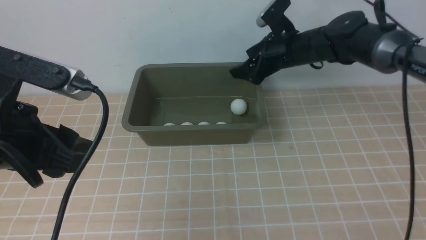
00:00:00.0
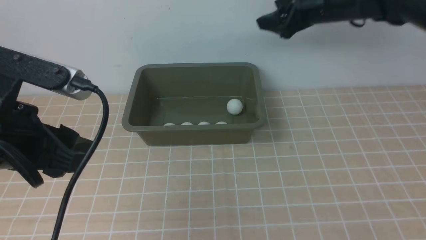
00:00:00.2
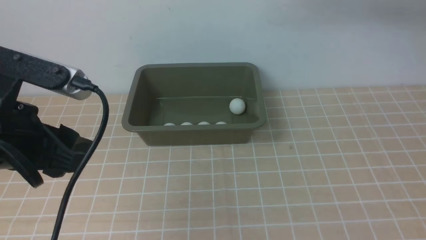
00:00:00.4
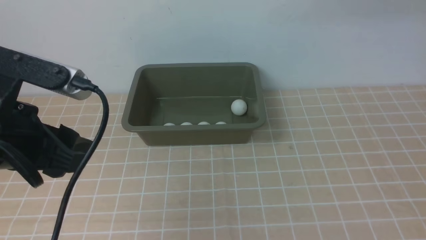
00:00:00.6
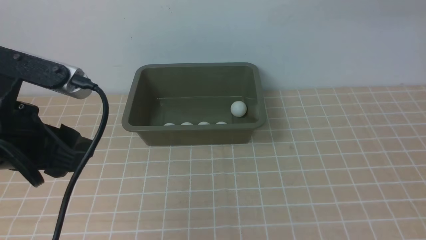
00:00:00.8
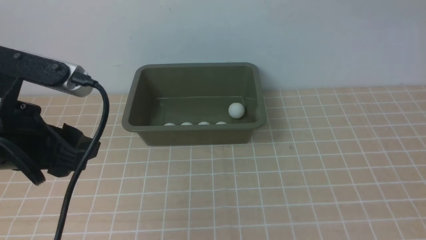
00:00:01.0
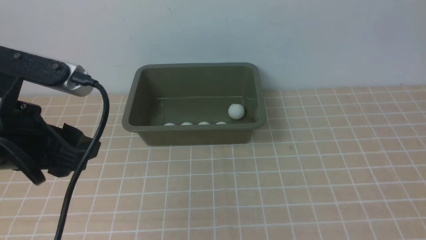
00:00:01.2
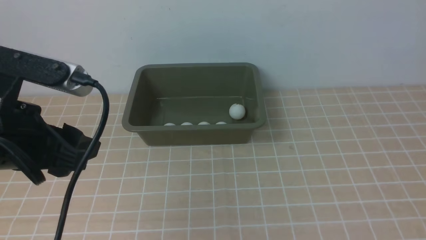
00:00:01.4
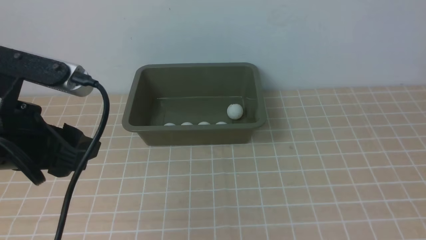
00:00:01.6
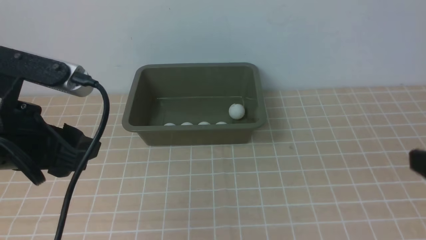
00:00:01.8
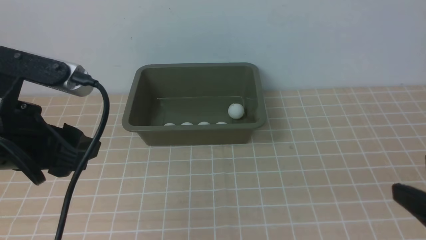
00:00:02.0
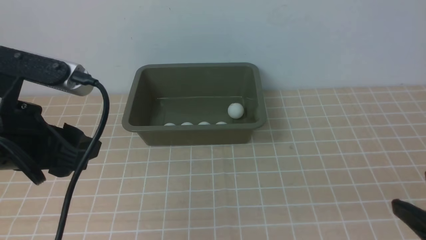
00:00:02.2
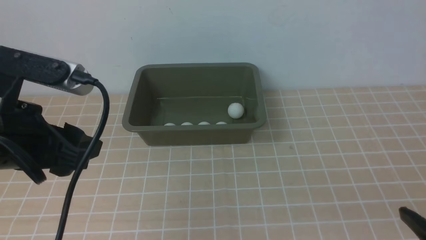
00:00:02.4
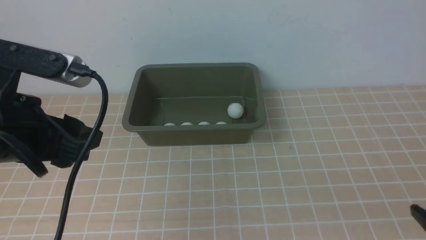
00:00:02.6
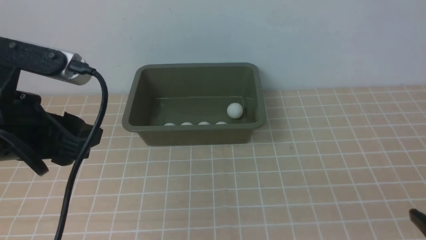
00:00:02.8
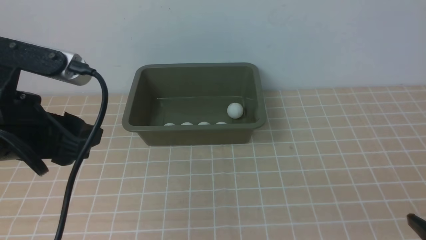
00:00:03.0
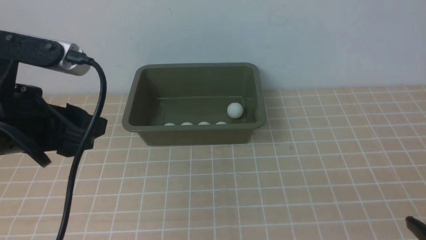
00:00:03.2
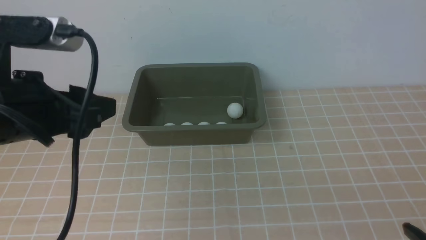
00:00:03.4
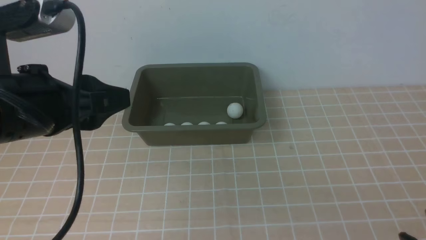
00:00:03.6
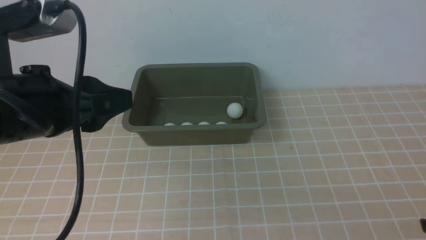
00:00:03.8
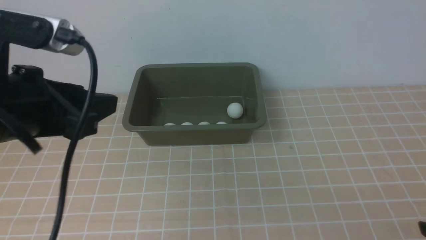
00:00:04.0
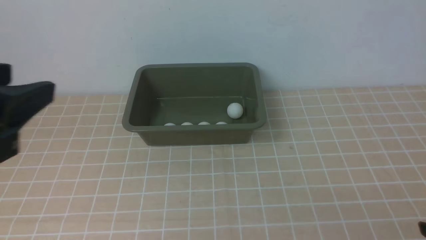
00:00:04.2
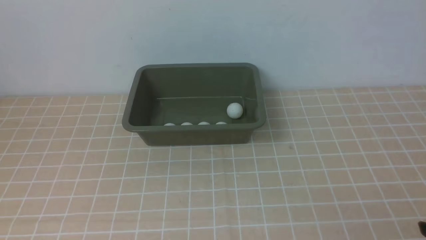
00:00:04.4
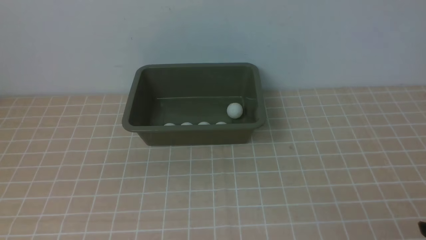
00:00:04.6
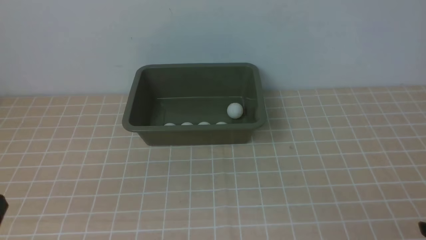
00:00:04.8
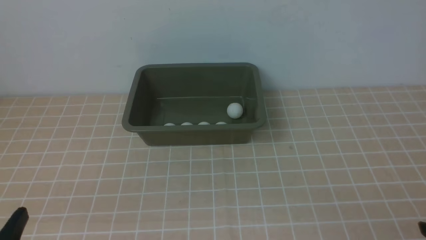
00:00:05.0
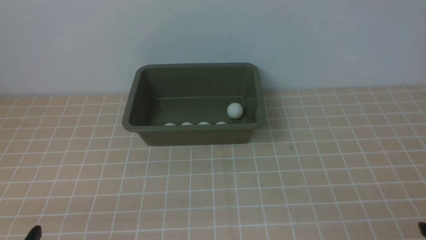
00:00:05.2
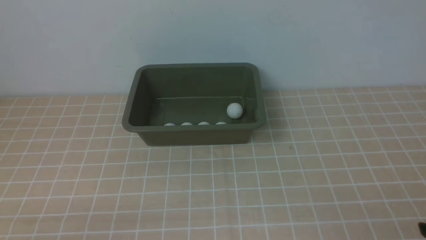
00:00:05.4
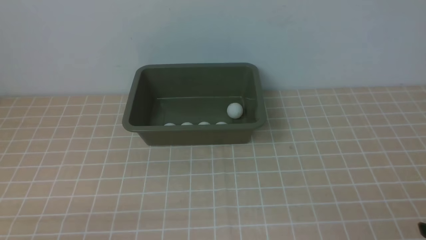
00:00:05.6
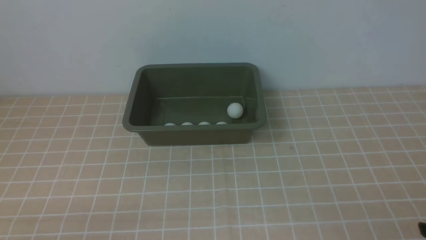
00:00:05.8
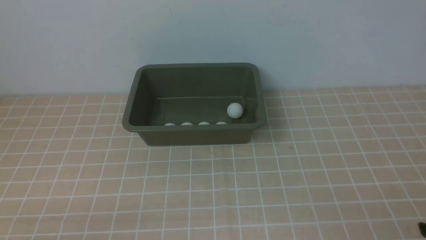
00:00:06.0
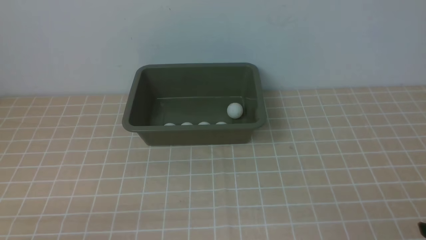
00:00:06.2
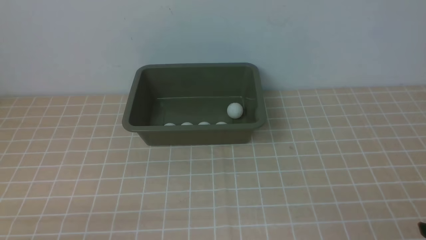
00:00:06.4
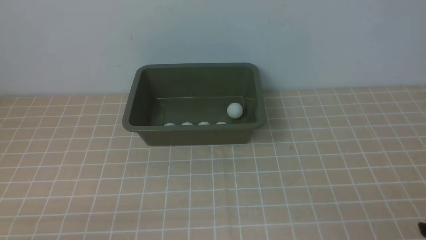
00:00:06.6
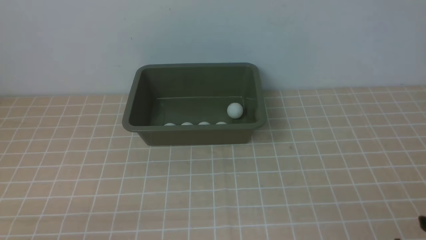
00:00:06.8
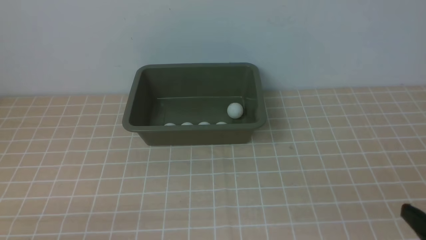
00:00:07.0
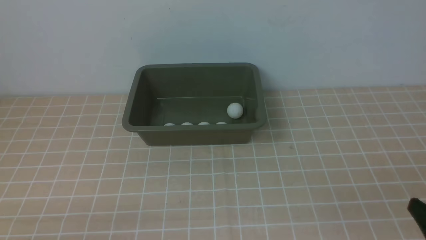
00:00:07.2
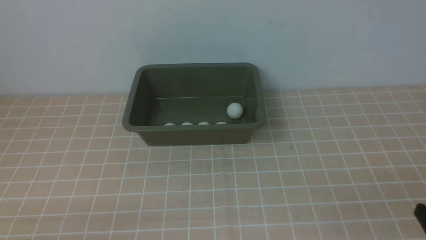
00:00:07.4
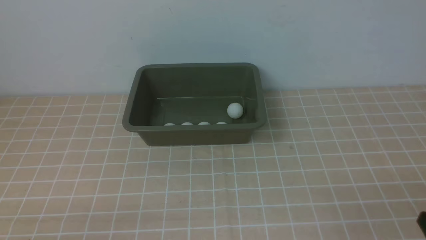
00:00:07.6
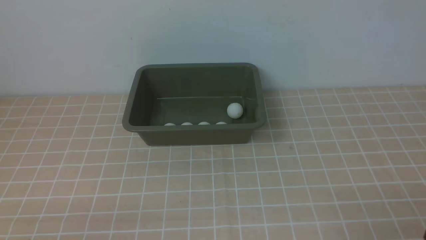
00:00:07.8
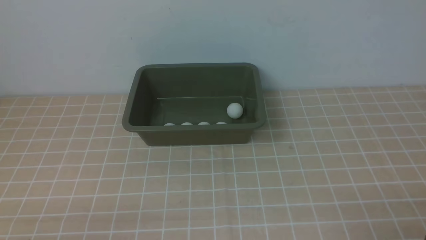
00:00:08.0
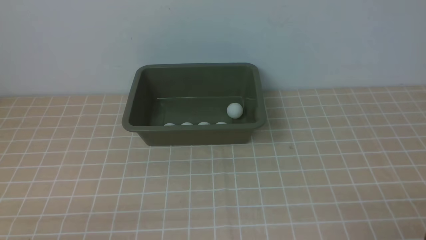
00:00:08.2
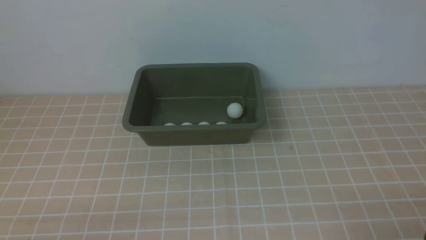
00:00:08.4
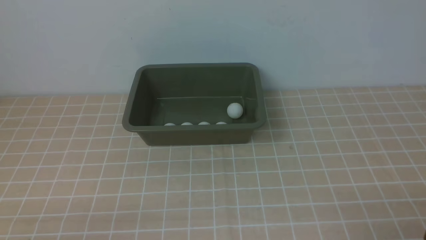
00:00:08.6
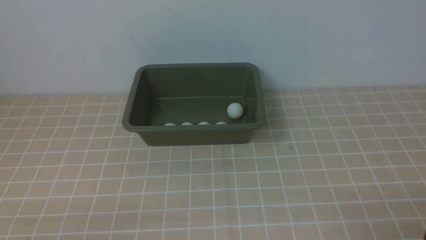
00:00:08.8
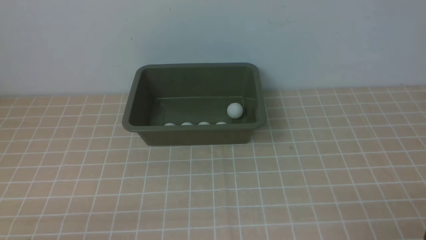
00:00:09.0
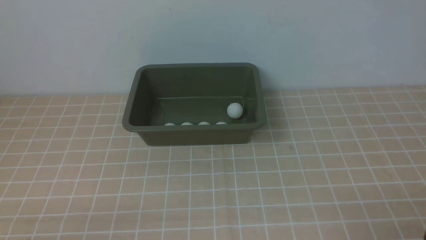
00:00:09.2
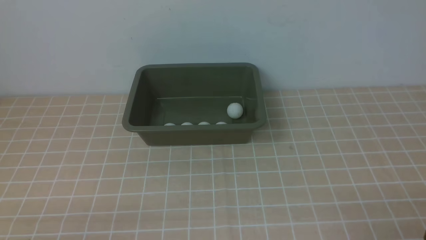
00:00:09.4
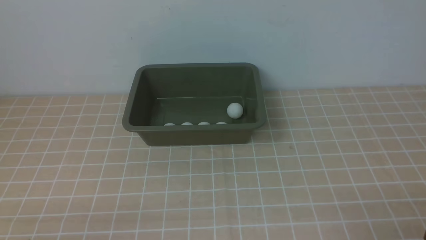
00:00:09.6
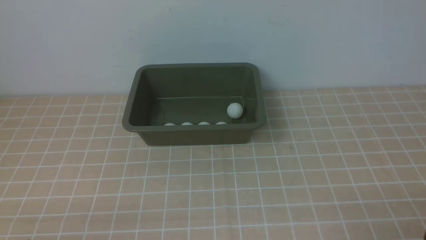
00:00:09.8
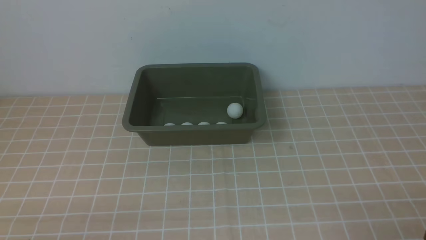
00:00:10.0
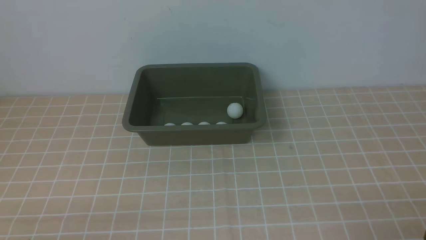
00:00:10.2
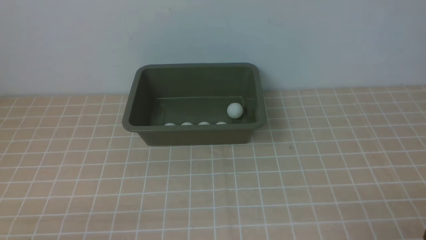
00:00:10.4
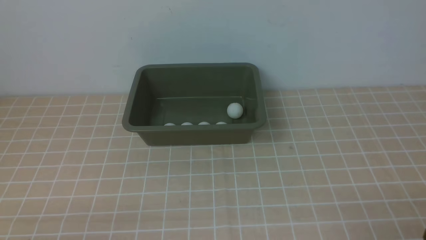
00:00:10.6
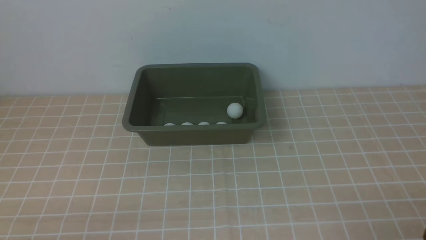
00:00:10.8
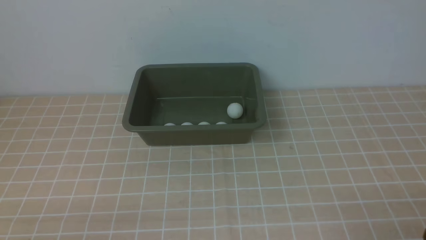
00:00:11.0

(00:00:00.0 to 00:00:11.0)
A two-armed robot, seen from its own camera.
00:00:00.0 - 00:00:01.6: The right gripper heads backward and upward, covering about 40 cm.
00:00:03.2 - 00:00:04.8: The left gripper travels backward by some 15 cm.
00:00:07.8 - 00:00:11.0: Both grippers stay put.

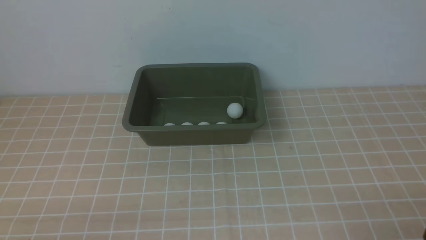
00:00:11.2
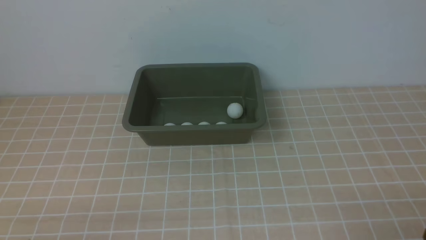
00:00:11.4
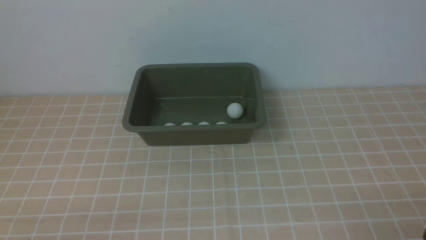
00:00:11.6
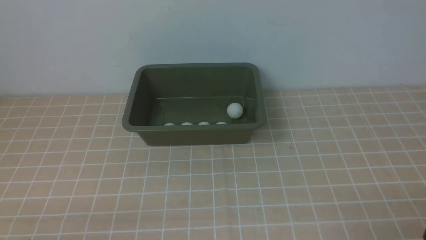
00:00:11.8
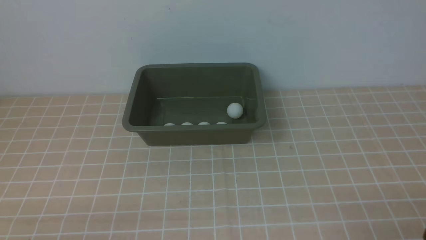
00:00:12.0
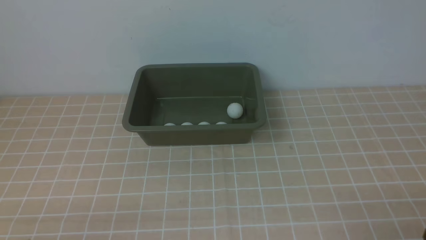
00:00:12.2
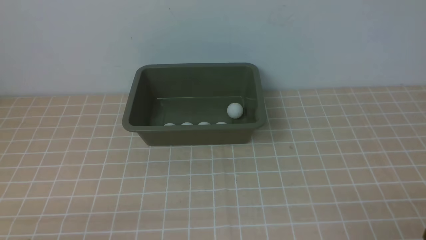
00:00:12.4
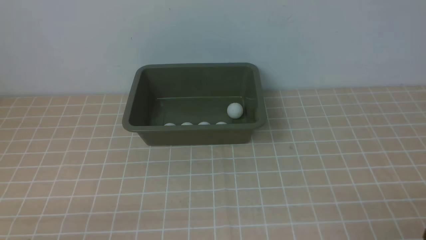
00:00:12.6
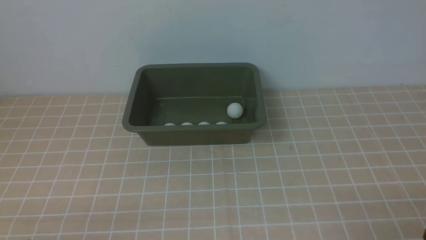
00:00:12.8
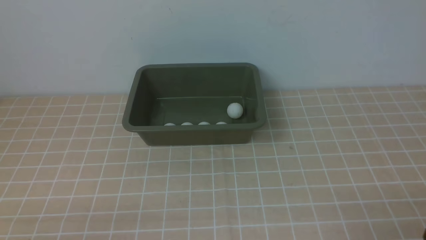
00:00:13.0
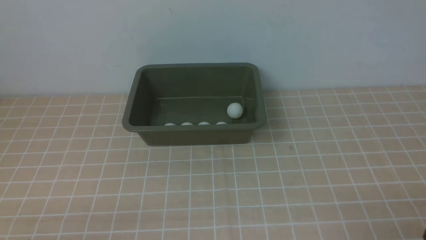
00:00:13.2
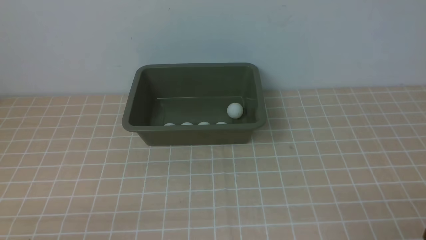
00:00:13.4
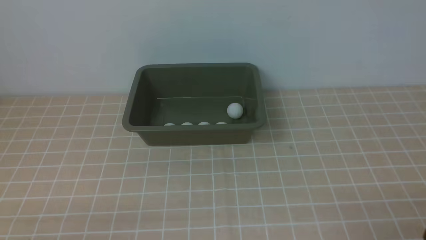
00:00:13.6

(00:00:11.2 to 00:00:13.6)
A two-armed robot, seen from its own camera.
00:00:11.2 - 00:00:13.6: The two grippers keep their place.
